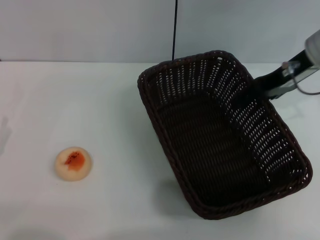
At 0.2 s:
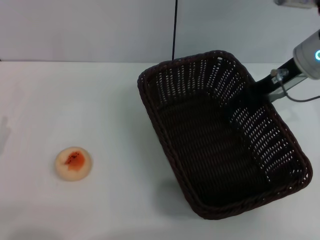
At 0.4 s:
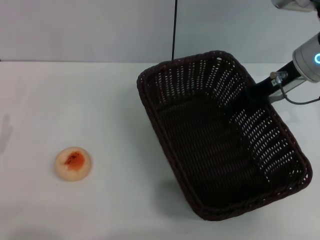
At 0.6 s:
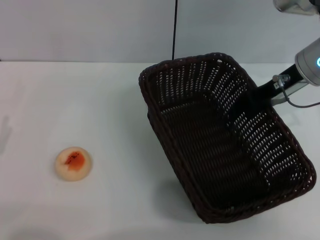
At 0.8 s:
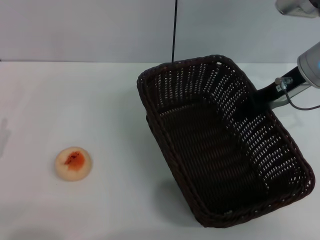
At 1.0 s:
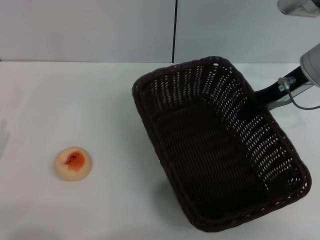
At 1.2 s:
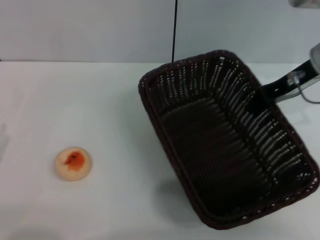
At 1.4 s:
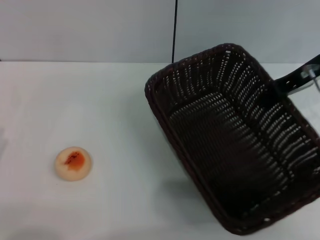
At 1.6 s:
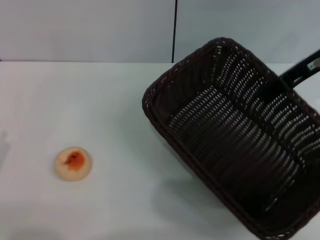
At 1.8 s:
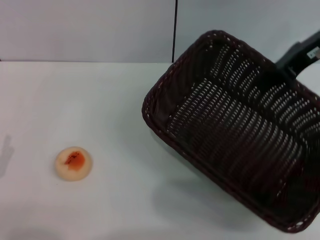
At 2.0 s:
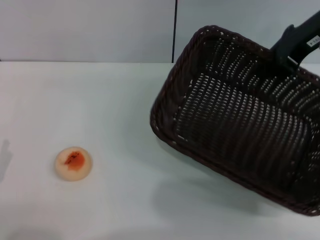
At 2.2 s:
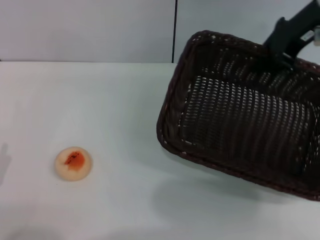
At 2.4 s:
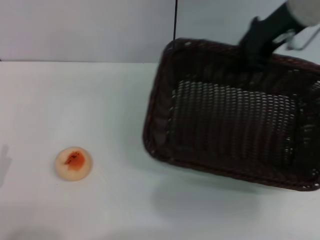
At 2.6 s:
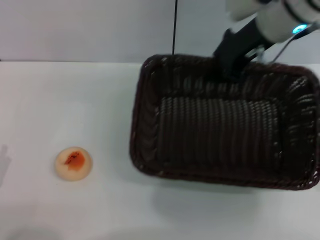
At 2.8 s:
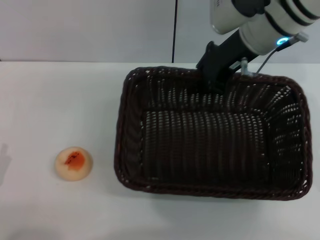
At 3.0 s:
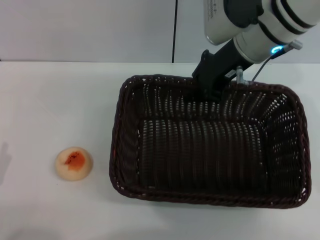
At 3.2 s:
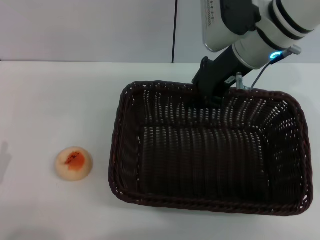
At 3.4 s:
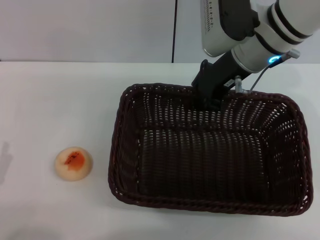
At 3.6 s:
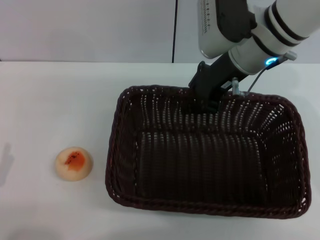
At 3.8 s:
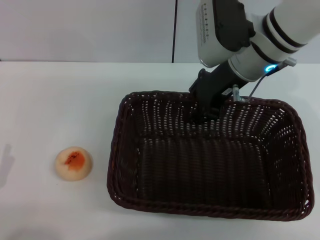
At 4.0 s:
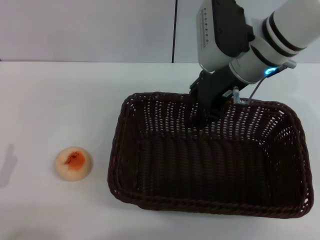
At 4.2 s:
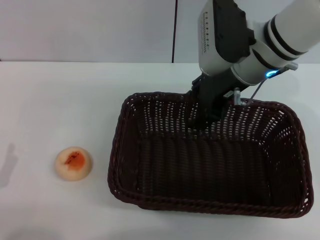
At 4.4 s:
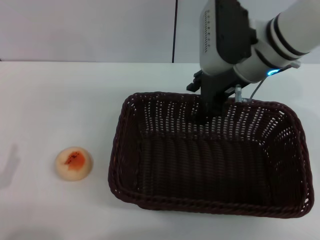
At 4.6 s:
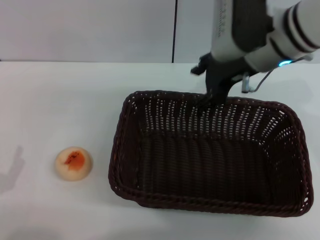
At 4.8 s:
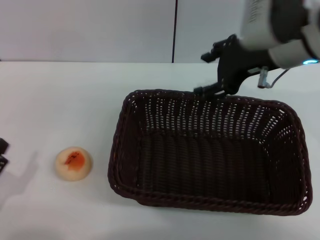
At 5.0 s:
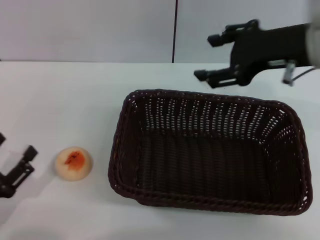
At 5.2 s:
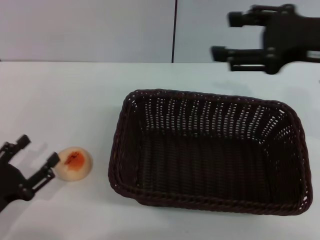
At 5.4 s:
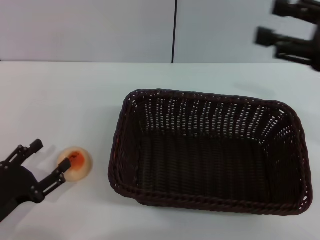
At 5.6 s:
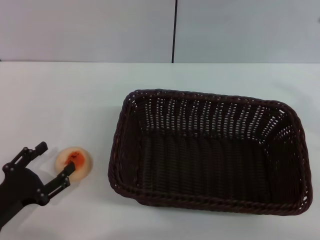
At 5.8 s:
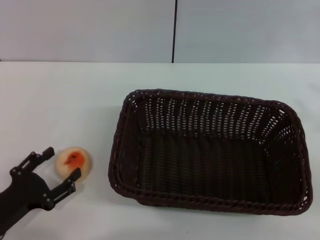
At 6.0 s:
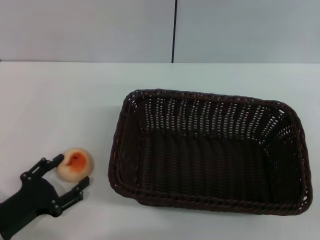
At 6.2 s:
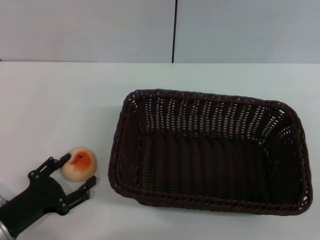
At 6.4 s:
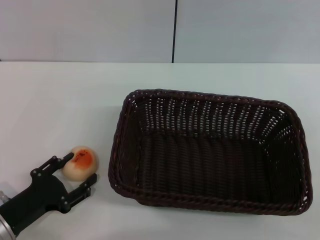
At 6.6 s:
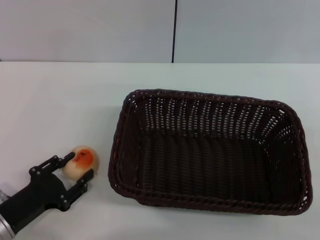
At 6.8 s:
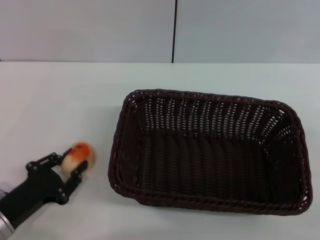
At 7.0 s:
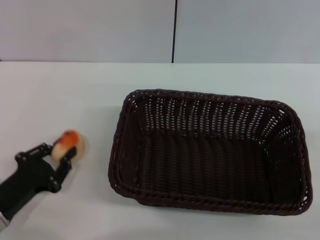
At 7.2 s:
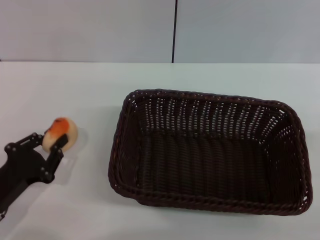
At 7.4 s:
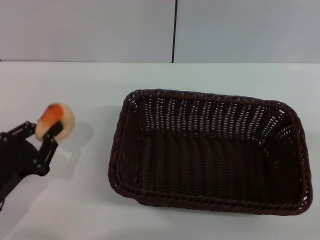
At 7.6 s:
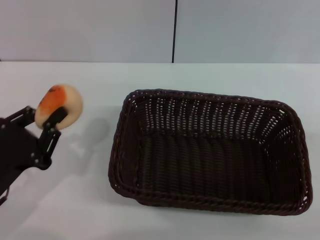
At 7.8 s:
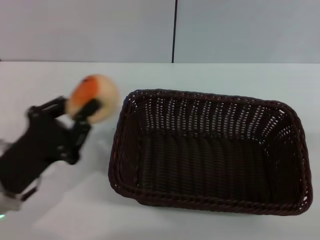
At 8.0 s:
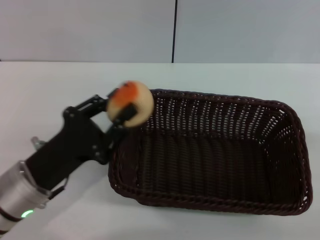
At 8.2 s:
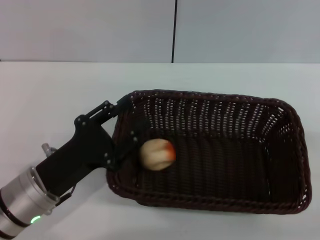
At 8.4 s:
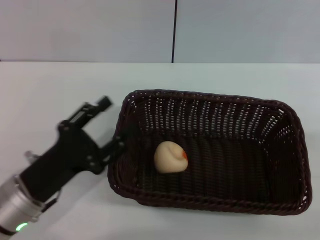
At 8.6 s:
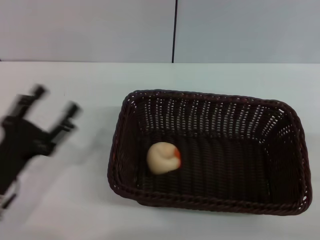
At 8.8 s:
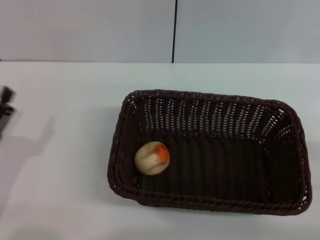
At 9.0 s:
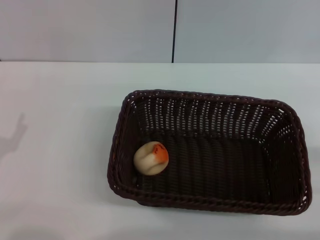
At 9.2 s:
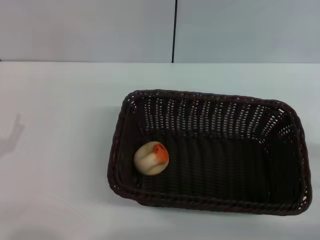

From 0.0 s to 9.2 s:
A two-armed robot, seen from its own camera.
Step, from 0.0 s to 4.8 s: Move the basket to the center of view with the right gripper.
Step, from 5.0 s to 7.0 s: Pick up the egg yolk pastry with the left gripper.
Step, from 7.4 s to 8.0 s: Place the egg yolk pastry into the basket with the left gripper.
From 0.0 s to 1.6 s: The right gripper closes.
From 1.6 s to 3.0 s: The right gripper is displaced to the left by roughly 10 cm.
From 3.0 s to 4.6 s: The right gripper opens its fingers.
From 4.6 s to 6.2 s: The right gripper shifts about 30 cm to the right and backward; the left gripper shifts by roughly 5 cm.
From 6.2 s to 7.6 s: The left gripper travels upward by about 5 cm, and closes.
From 7.6 s to 9.2 s: The left gripper moves roughly 5 cm, and opens.
